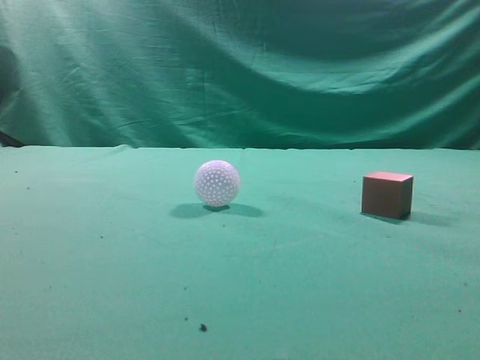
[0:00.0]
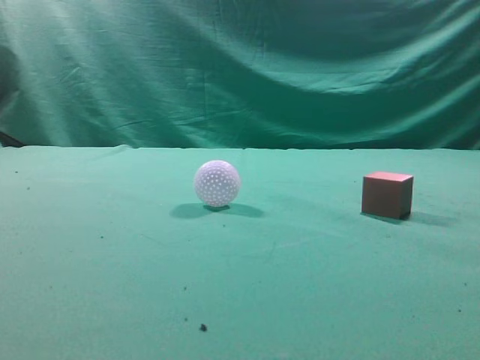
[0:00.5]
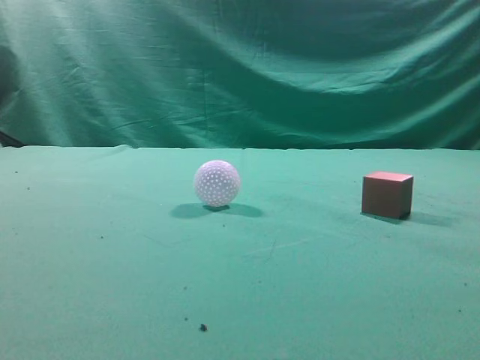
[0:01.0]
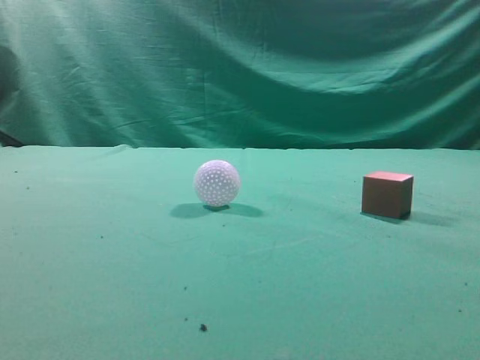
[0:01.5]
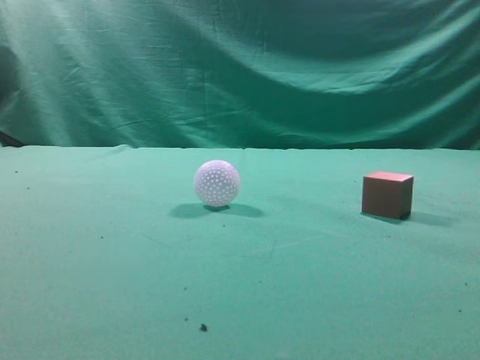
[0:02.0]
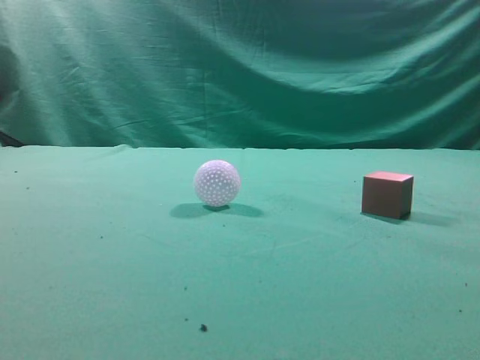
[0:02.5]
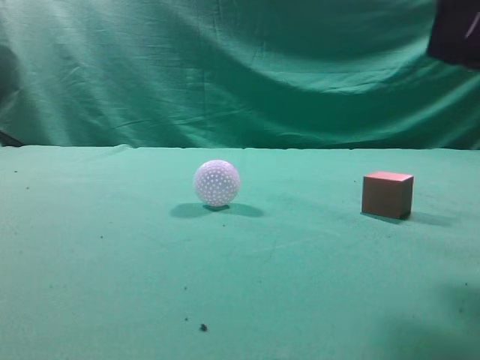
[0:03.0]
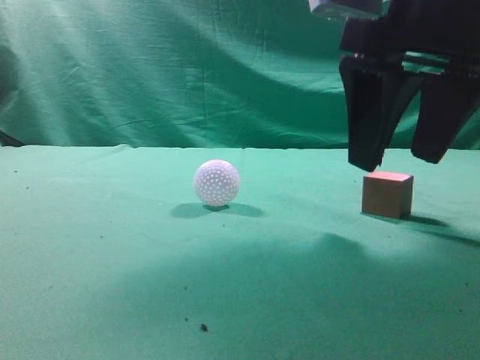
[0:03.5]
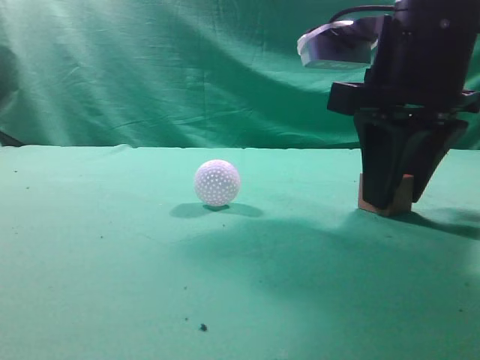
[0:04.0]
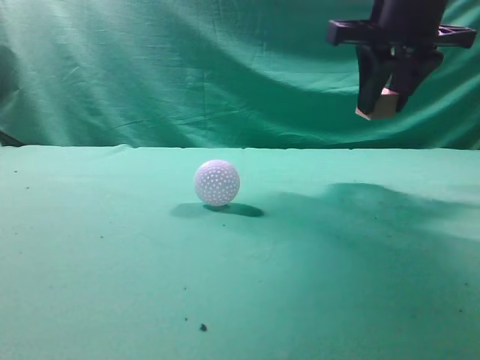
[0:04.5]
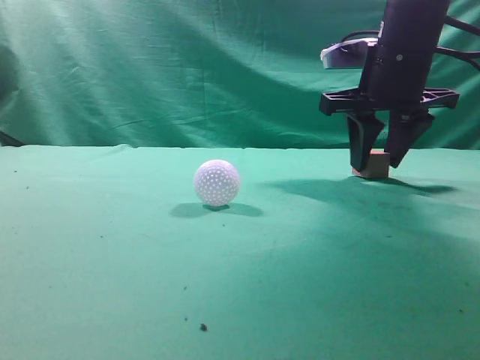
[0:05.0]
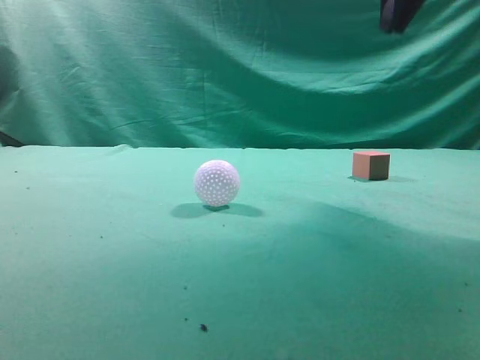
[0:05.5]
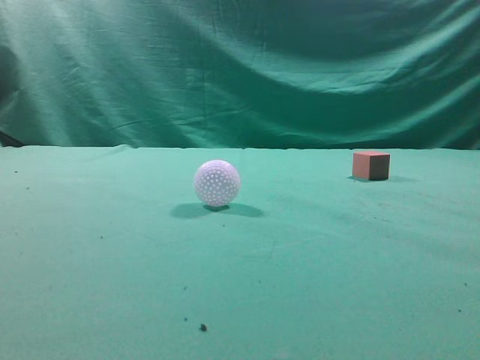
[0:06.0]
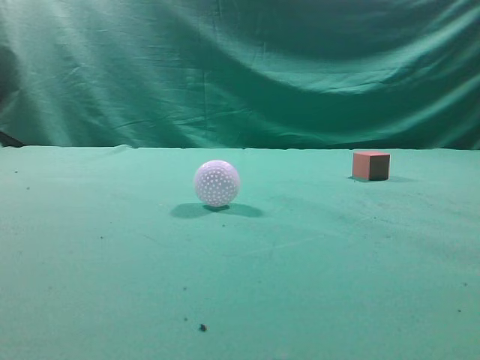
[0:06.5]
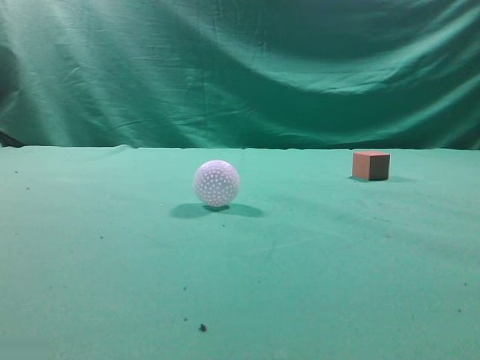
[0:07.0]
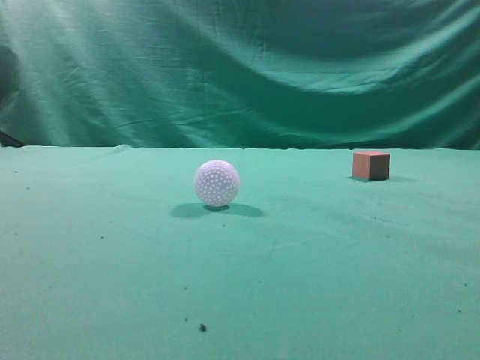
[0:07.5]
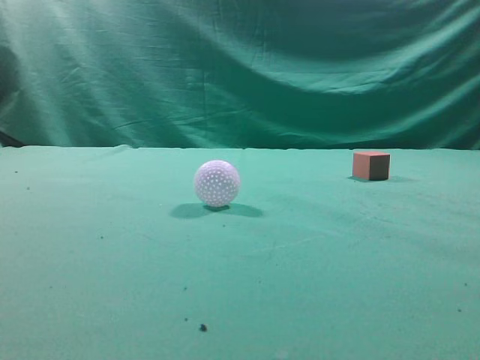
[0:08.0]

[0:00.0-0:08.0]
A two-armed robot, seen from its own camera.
Task of the whole recording: pick up the cube block and place it in another position on the table.
Step, 0:00.0 to 0:04.0: Pick up the small cube.
Step, 0:04.5 to 0:05.0: Place the small cube on the ahead of the table.
0:02.0 to 0:04.0: The right gripper travels forward, to the left and downward by some 30 cm, and opens up.
0:04.0 to 0:06.0: The right gripper goes up and down, some 25 cm each way, reversing 2 times, and closes up.
